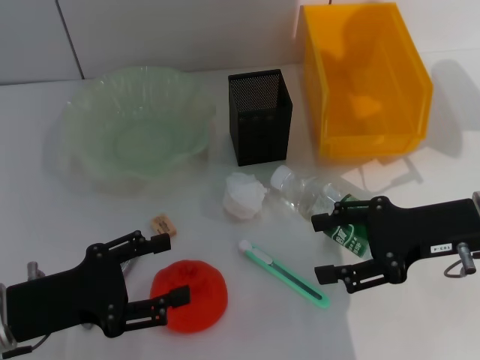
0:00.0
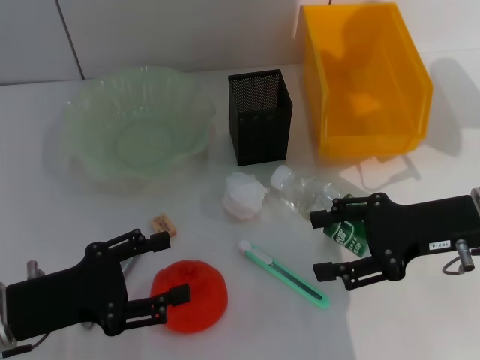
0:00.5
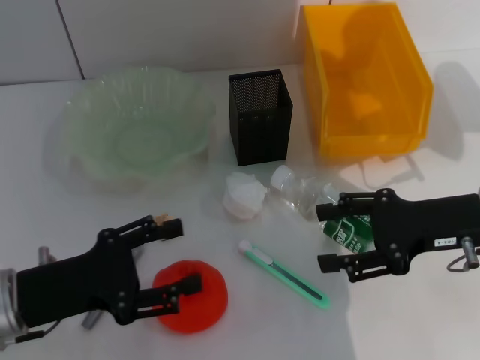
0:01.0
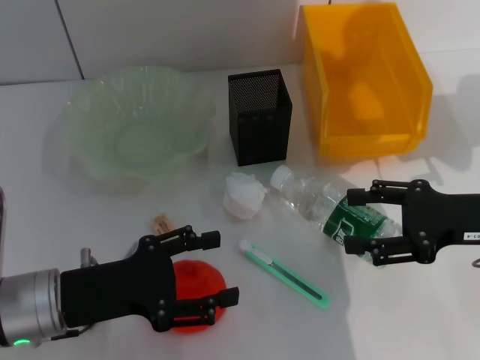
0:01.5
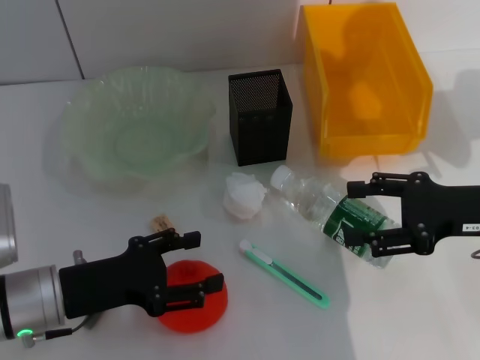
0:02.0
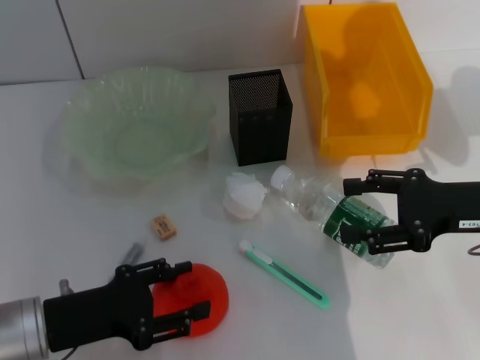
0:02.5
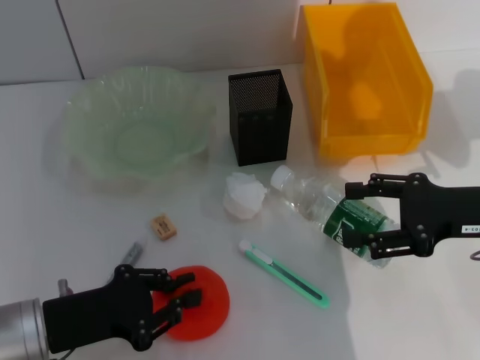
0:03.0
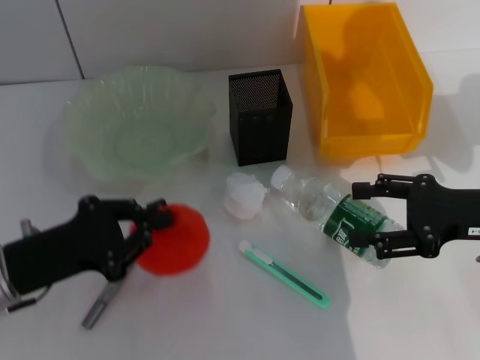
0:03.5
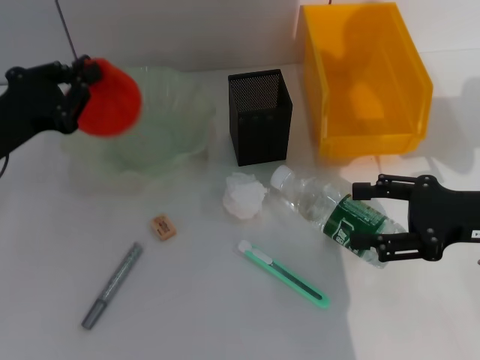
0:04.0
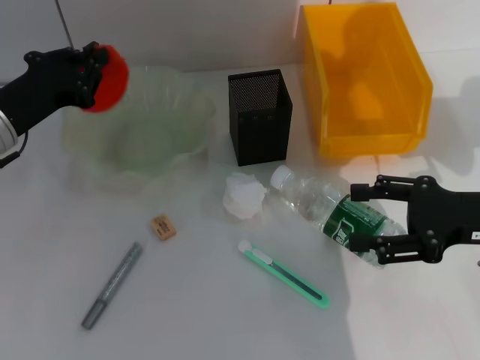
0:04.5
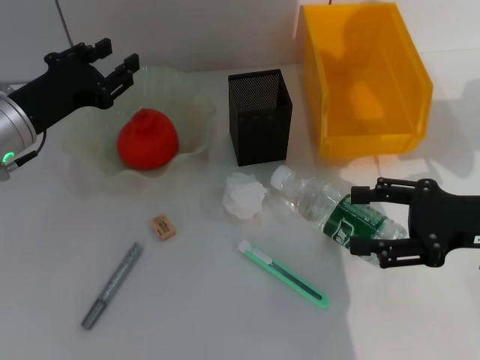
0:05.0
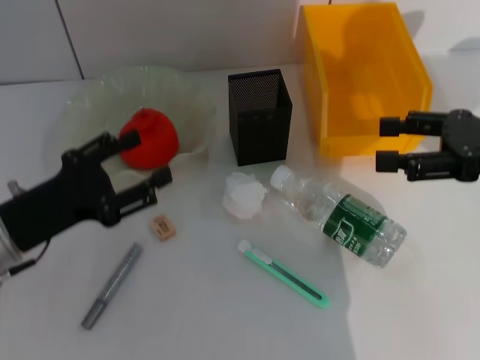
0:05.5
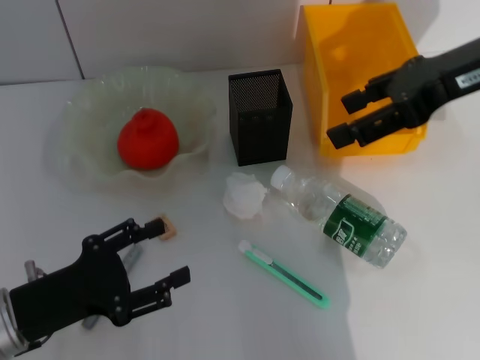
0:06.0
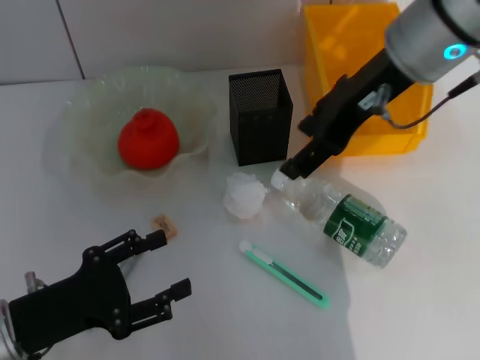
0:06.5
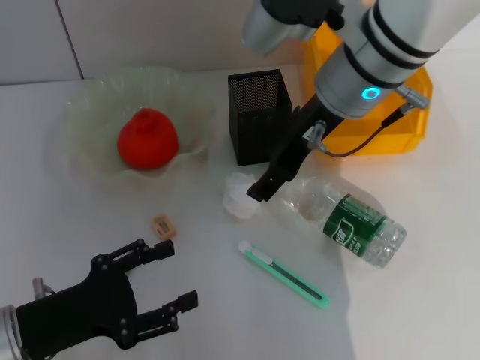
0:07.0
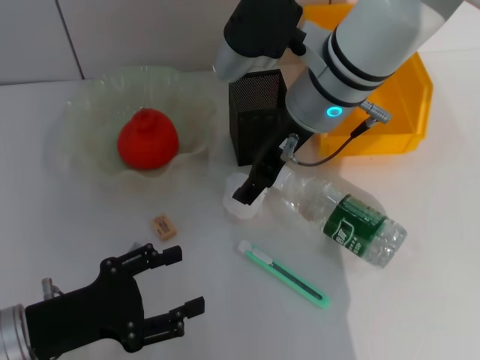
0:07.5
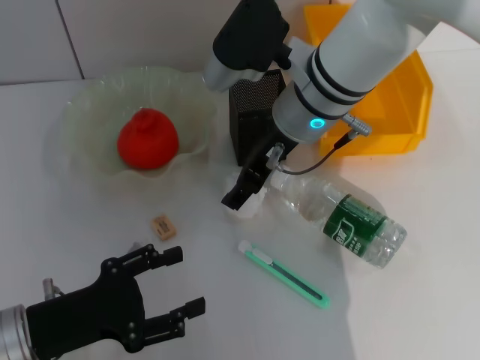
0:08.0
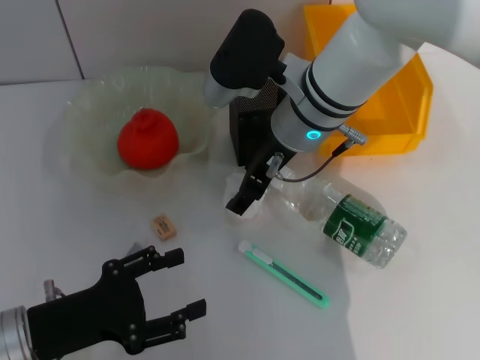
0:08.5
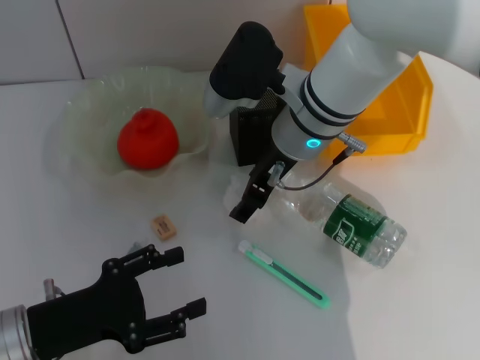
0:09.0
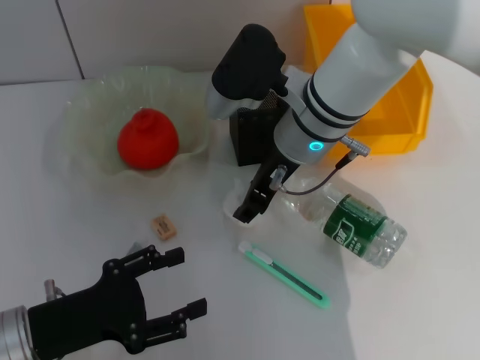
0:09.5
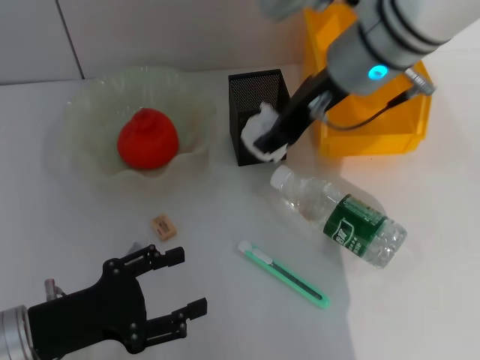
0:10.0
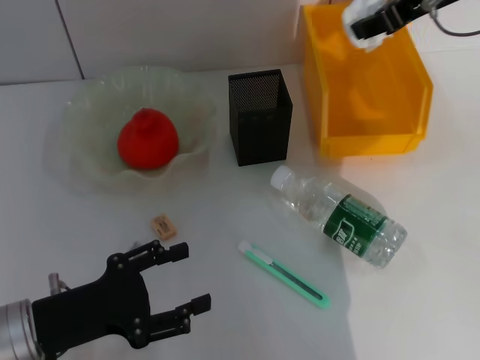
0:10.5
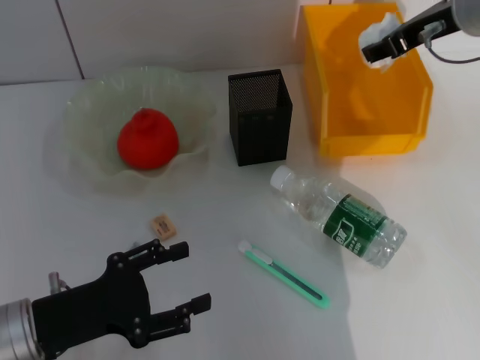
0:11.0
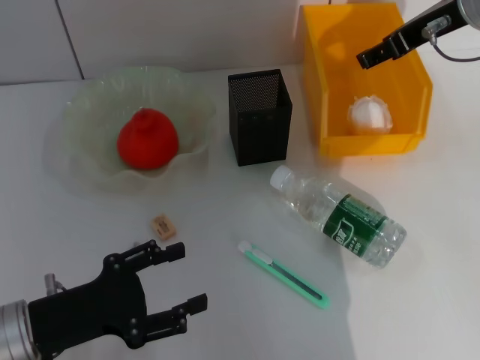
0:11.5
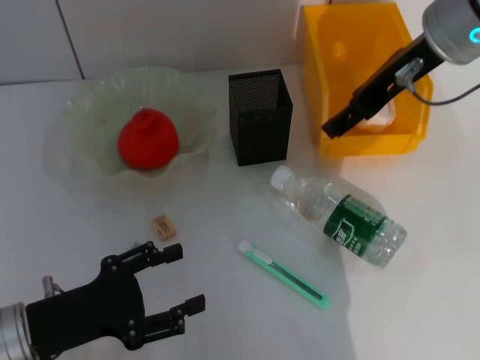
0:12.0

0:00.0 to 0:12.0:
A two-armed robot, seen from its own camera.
Step, 0:00.0 to 0:03.0: Grab the orange with the left hand.
Step, 0:03.5 to 0:04.5: Place the orange into the fruit bowl with the left hand.
Step, 0:05.0 to 0:09.0: Grab the paper ball with the right hand.
Step, 0:09.5 to 0:11.0: Place the paper ball into the trash can with the right hand.
0:00.0 to 0:02.0: The grippers make only small movements.
0:02.0 to 0:04.0: The left gripper moves upward and forward, approximately 10 cm, and closes up.
0:04.0 to 0:06.0: The left gripper is displaced backward and downward by approximately 10 cm, and opens up. The right gripper heads upward and forward, covering about 20 cm.
0:06.0 to 0:08.0: The right gripper travels to the left and downward by about 20 cm.
0:08.0 to 0:10.0: The right gripper shifts some 5 cm upward.
0:10.0 to 0:12.0: The right gripper goes about 5 cm to the right, and opens.

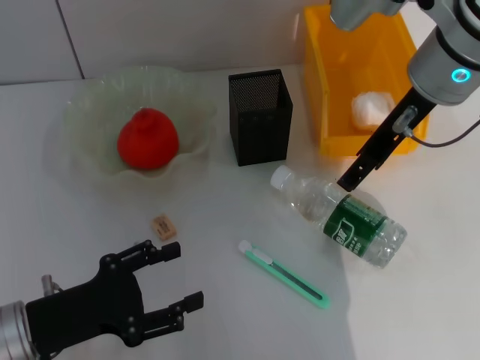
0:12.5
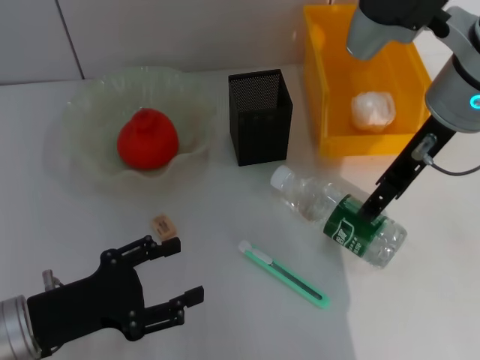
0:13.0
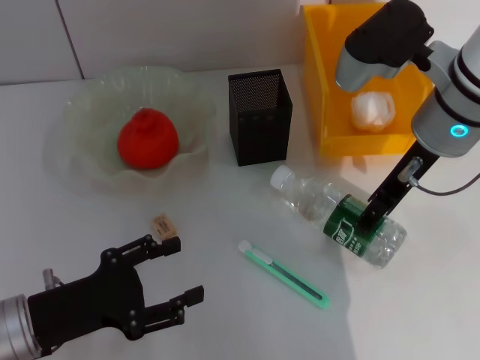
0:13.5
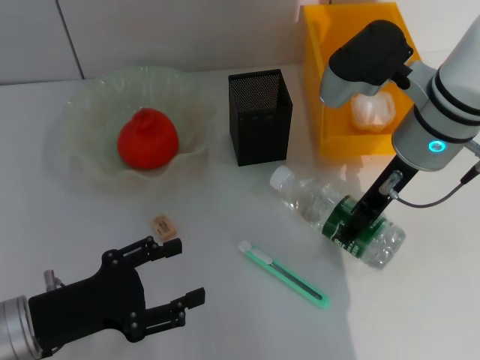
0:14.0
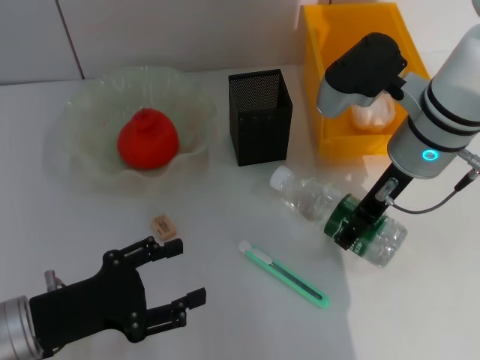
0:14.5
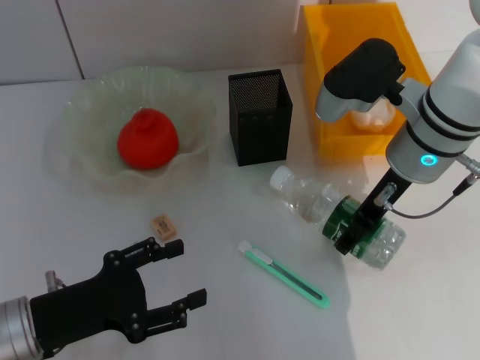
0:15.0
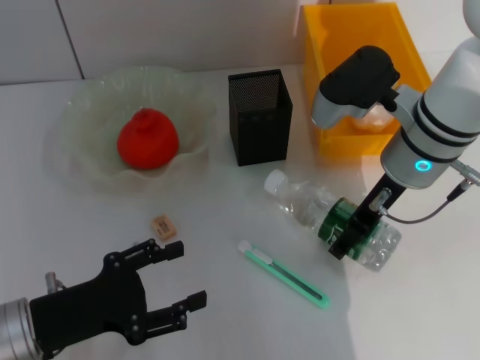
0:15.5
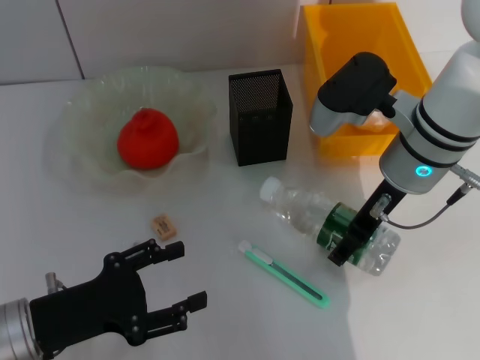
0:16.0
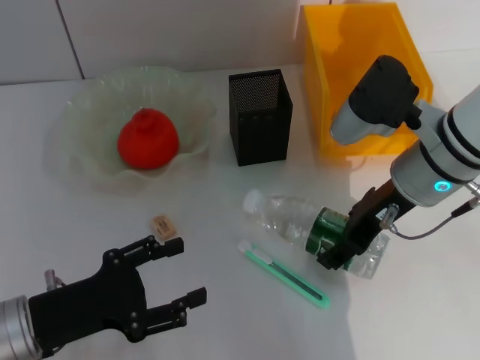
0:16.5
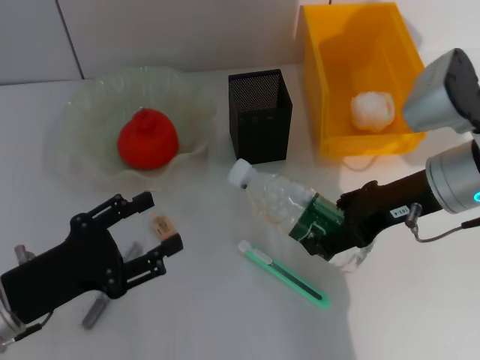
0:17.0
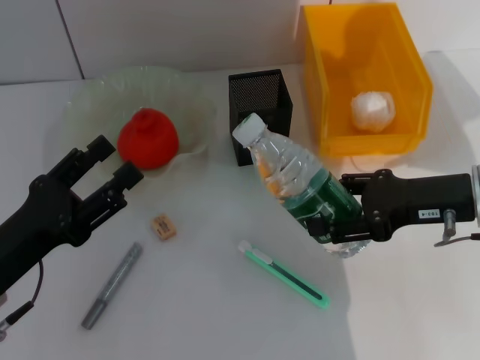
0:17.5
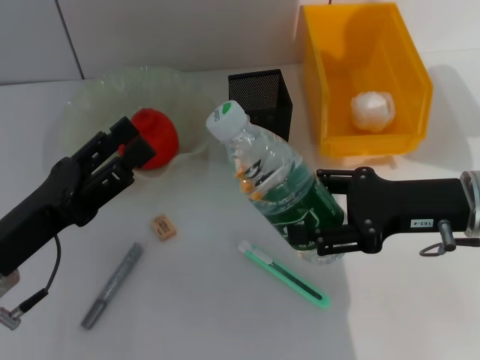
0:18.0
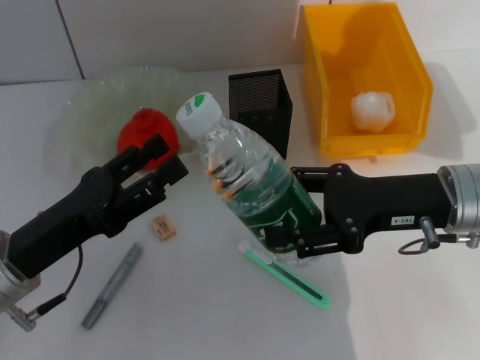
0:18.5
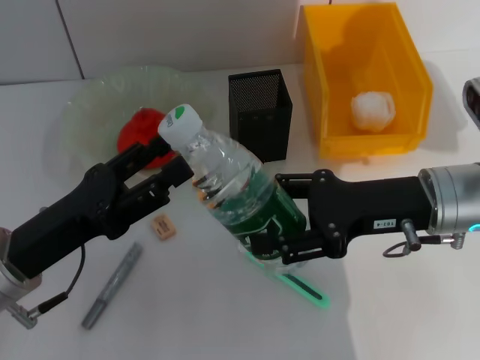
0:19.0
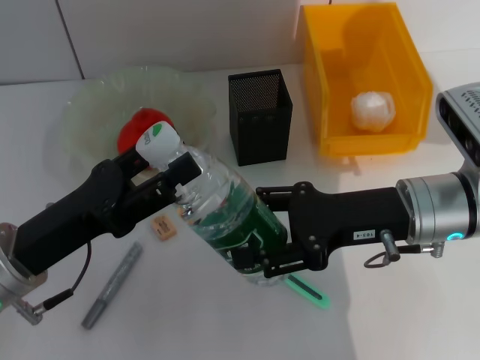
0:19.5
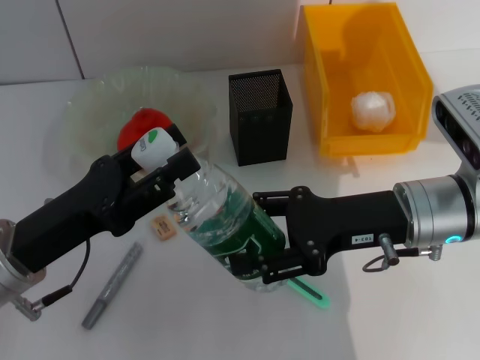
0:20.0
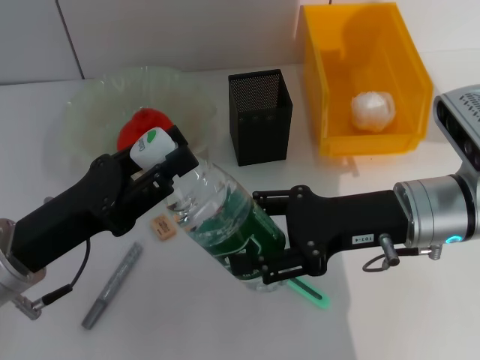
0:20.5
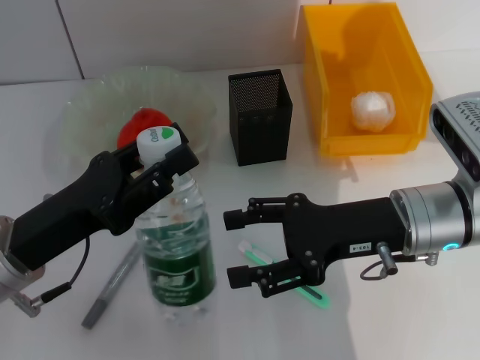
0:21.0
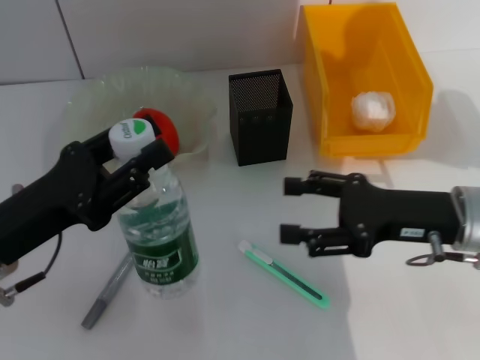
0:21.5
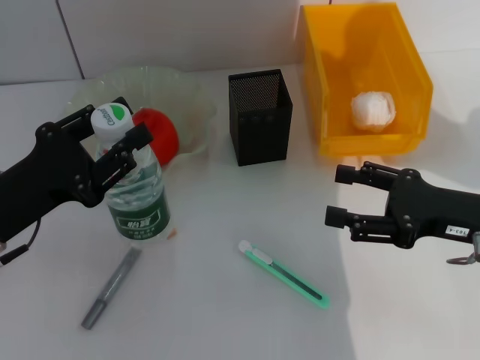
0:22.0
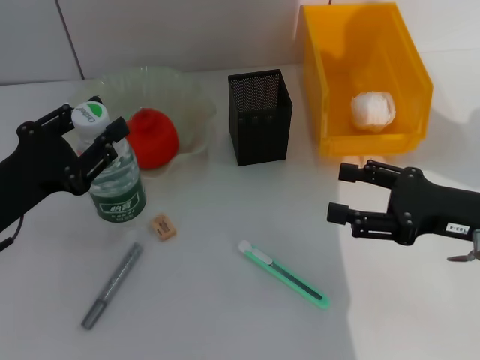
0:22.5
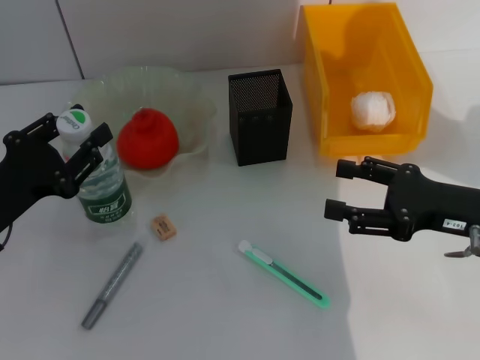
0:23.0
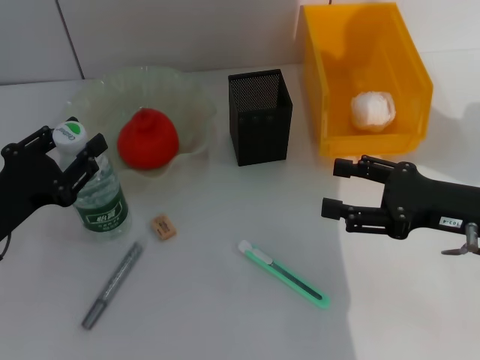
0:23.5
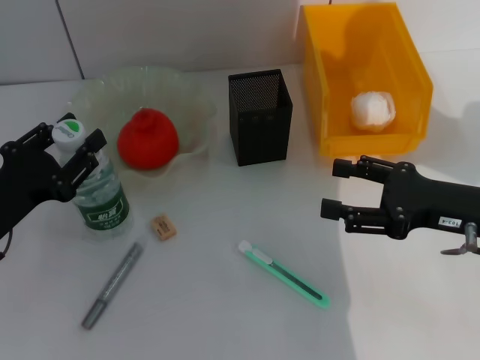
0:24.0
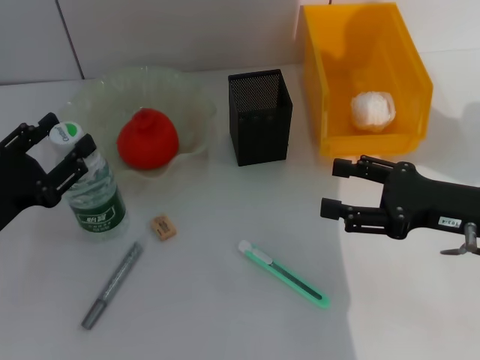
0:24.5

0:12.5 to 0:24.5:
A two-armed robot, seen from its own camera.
Step, 0:12.5 to 0:15.5: Grab the water bottle with the right hand.
Step, 0:16.0 to 0:21.5: Pass the water bottle from the right hand to the left hand.
0:12.5 to 0:14.5: The right gripper is displaced downward by about 10 cm.
0:14.5 to 0:16.5: There are only small adjustments of the grippers.
0:16.5 to 0:18.5: The right gripper moves about 5 cm.
0:18.5 to 0:20.5: The grippers stay close to where they were, moving slightly.
0:20.5 to 0:22.5: The left gripper changes place by some 5 cm. Meanwhile the right gripper goes roughly 10 cm to the right.
0:22.5 to 0:24.5: The grippers move only a little.

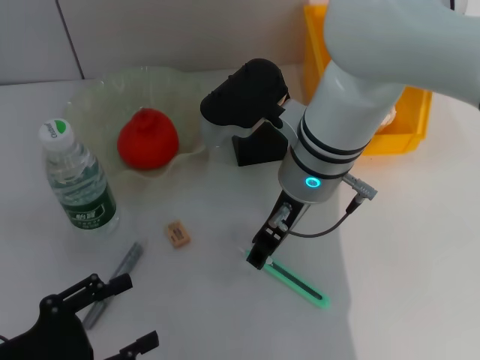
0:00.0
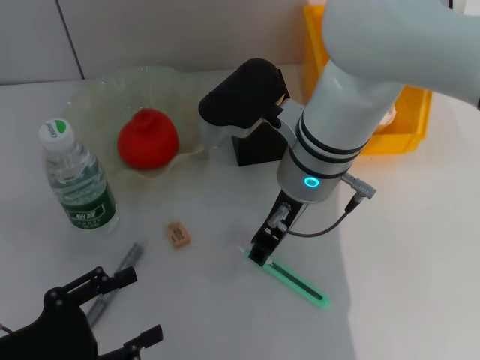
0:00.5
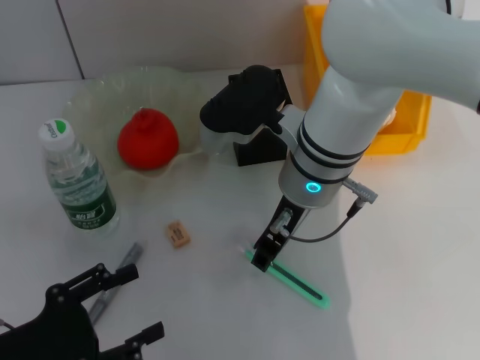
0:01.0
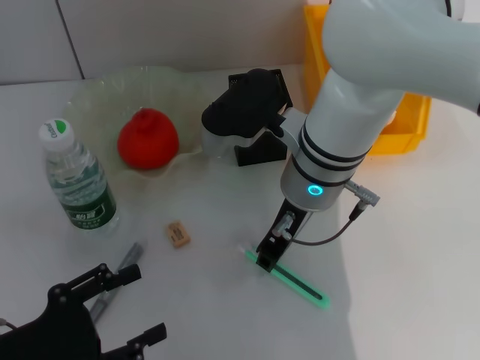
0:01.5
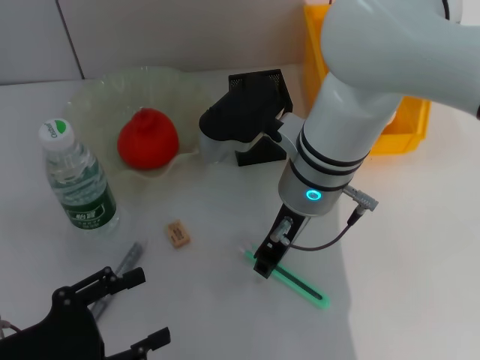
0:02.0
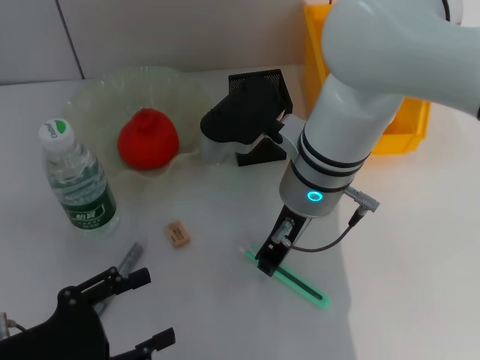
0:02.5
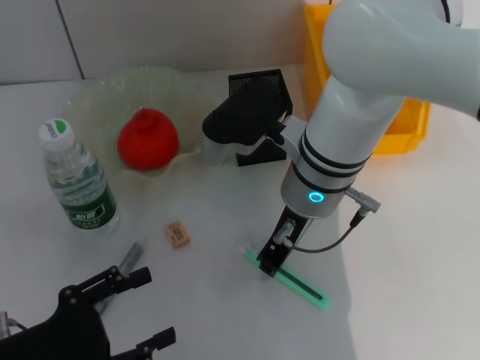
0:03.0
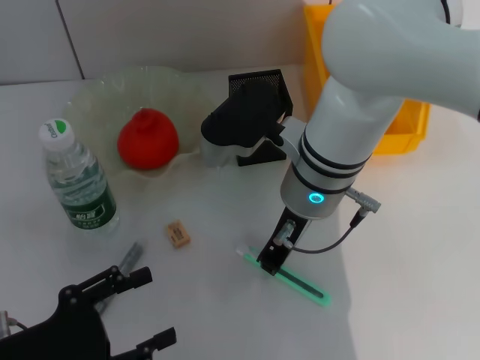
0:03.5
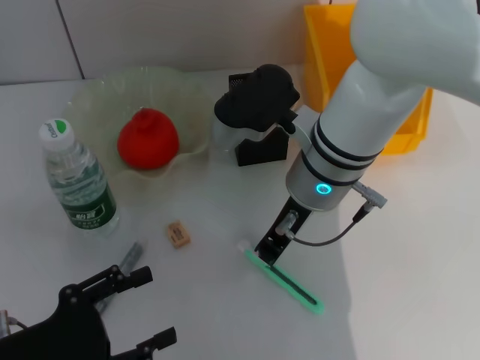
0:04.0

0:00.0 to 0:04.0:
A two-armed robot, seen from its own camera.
0:00.0 to 0:02.0: The right gripper closes up.
0:02.0 to 0:04.0: The right gripper closes its fingers.
